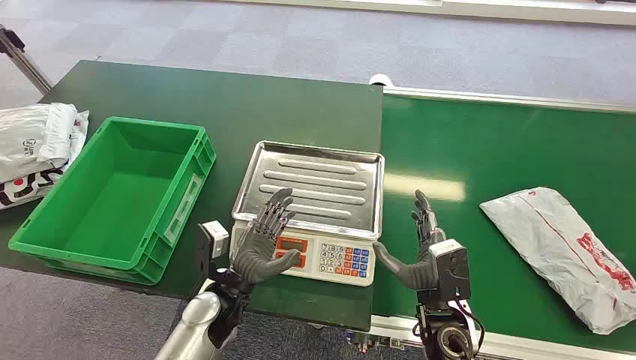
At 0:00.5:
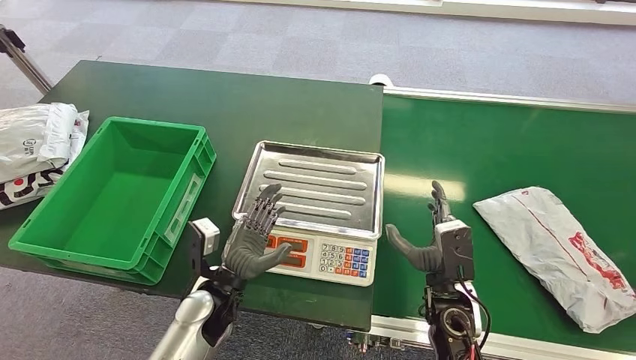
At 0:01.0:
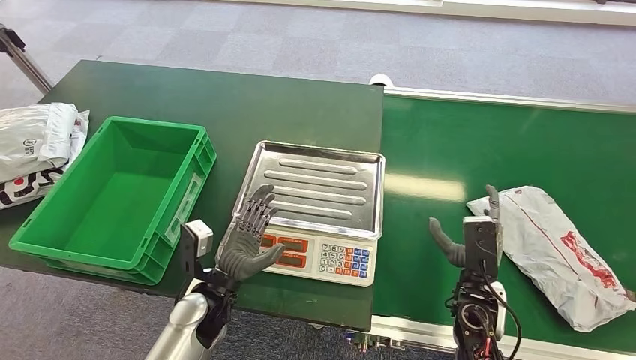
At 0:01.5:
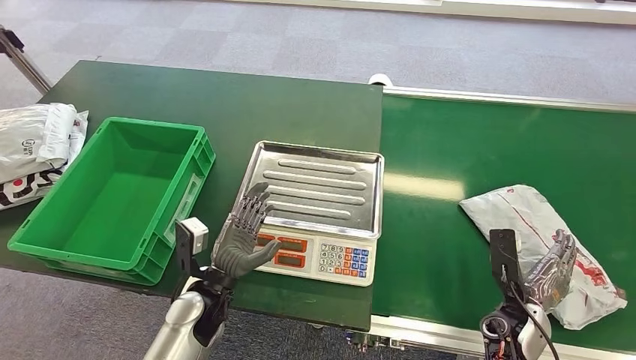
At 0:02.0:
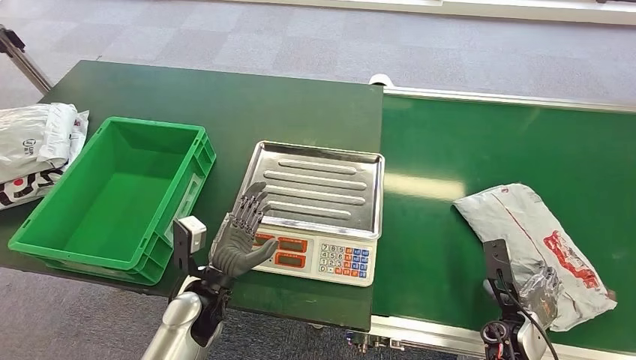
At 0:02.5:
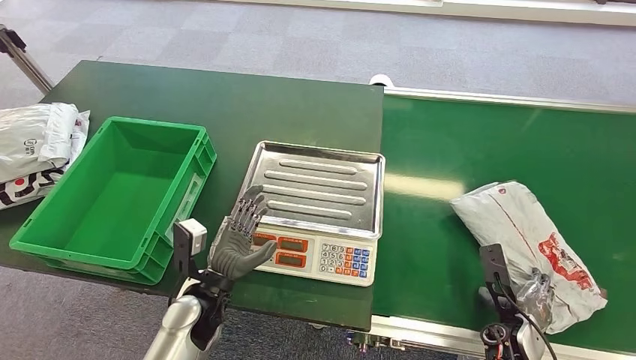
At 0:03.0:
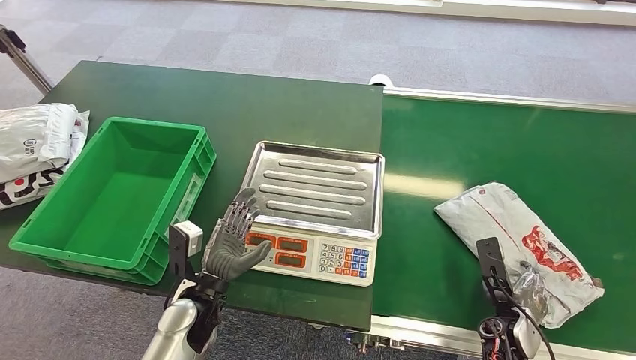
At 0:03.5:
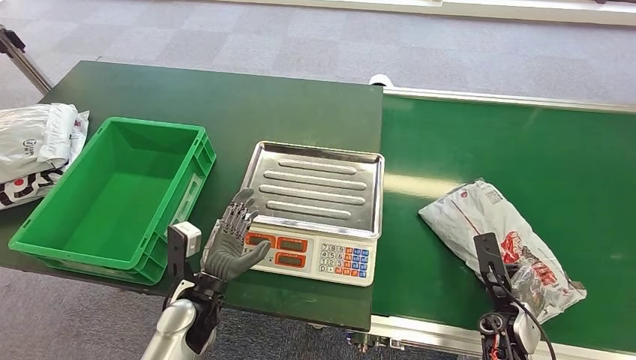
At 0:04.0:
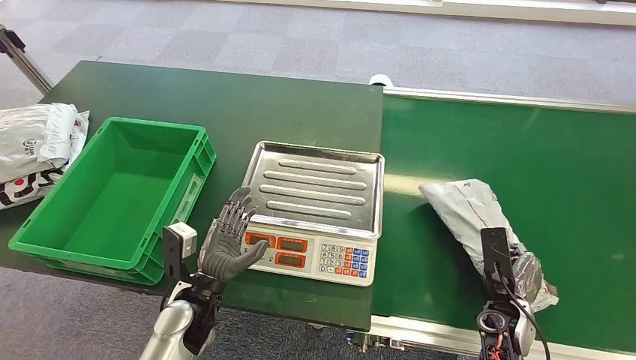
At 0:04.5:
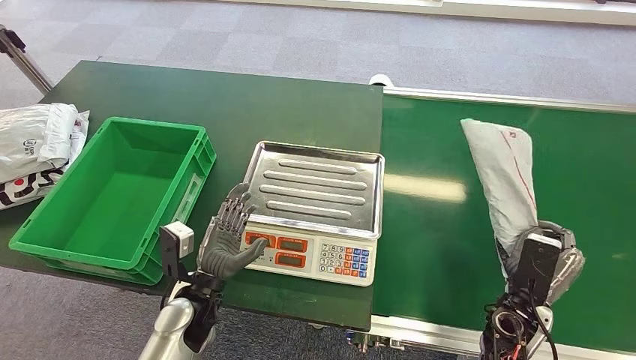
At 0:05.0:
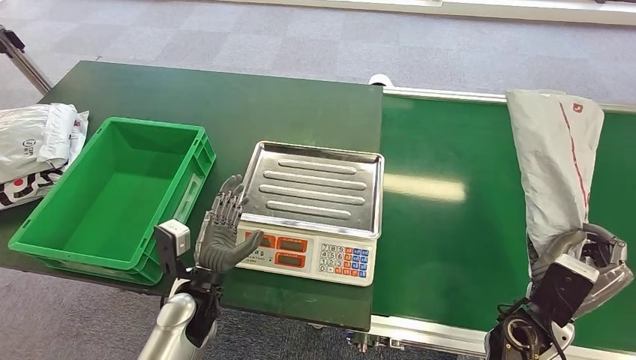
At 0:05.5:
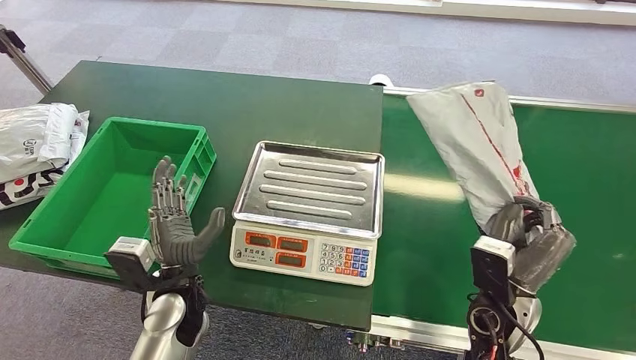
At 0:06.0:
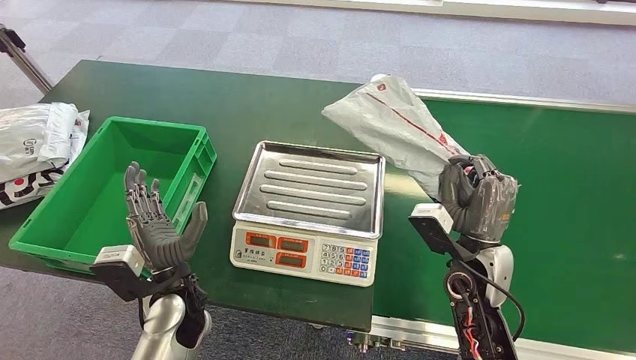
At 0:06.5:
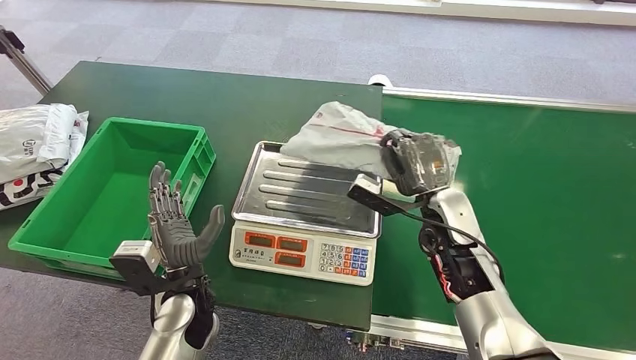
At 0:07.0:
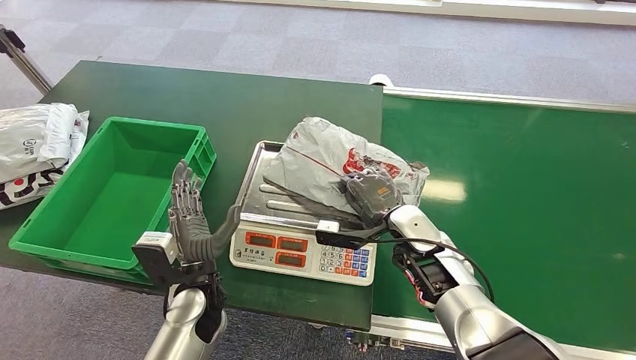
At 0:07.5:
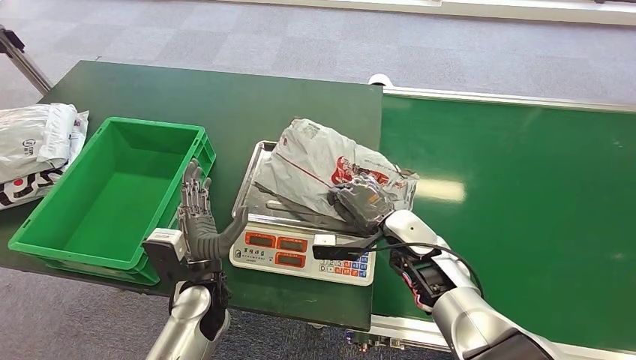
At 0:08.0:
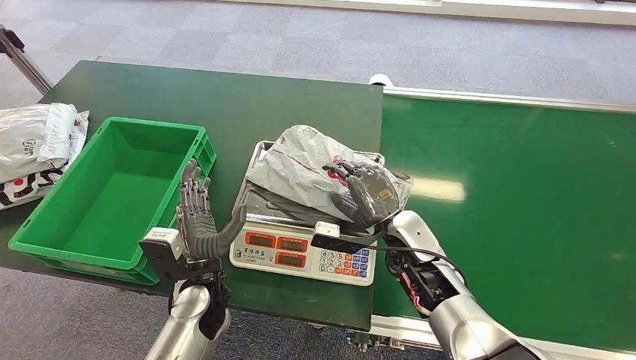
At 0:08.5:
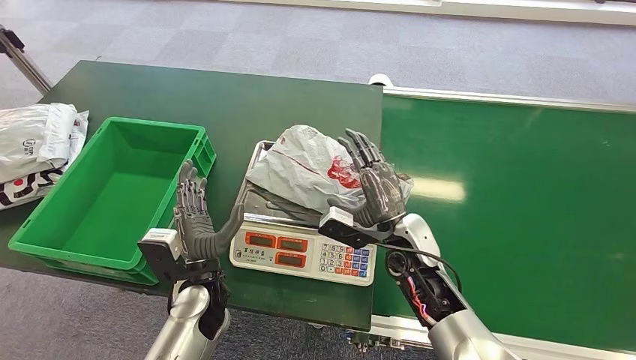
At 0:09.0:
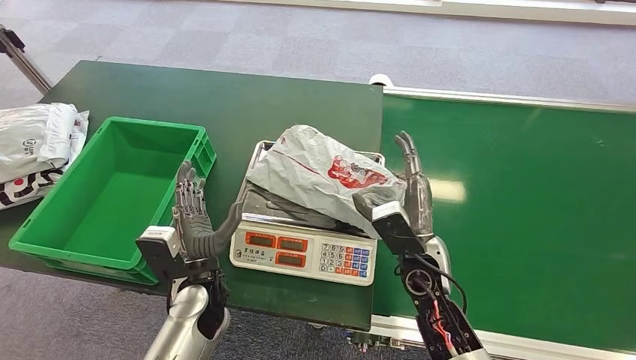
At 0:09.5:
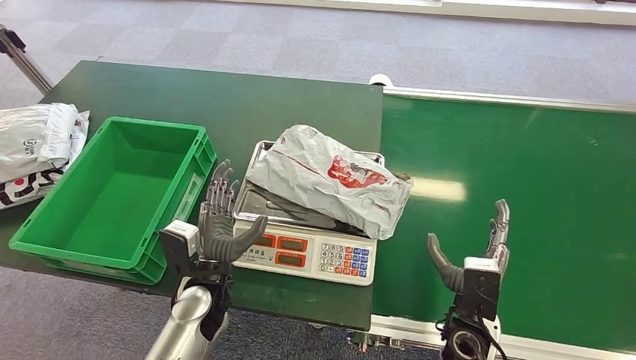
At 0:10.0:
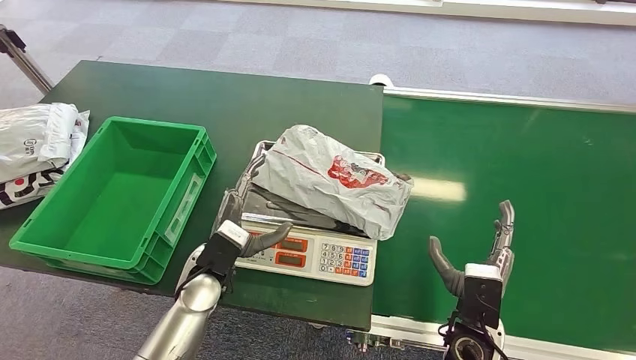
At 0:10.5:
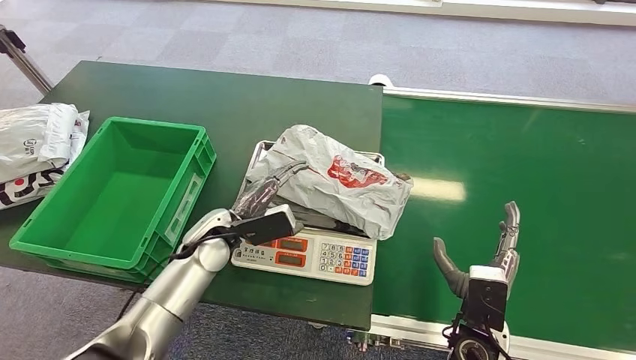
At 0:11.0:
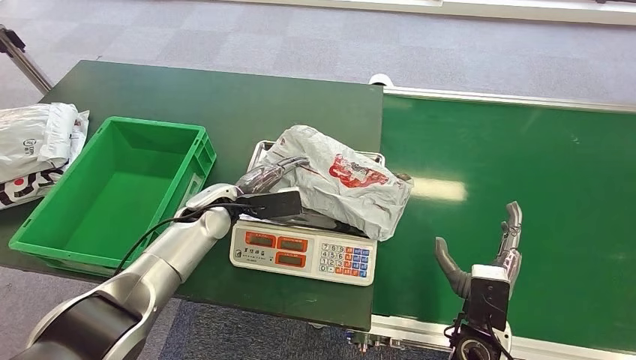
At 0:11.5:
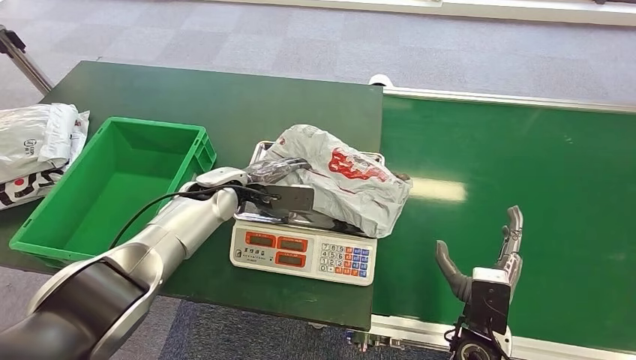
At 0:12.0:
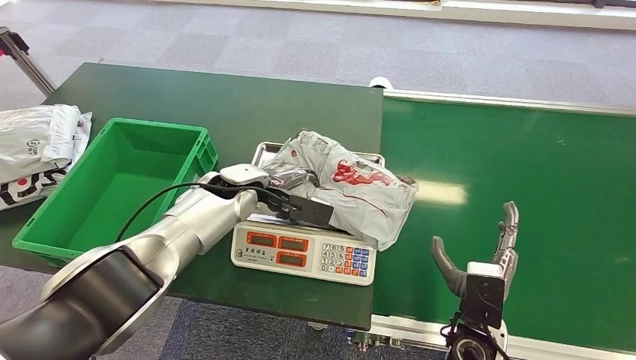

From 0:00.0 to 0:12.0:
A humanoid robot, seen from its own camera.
Step, from 0:00.0 to 0:04.5: Pick up the package from the conveyor belt.
Step, from 0:07.5 to 0:09.5: Place the package onto the inbound machine.
From 0:04.0 to 0:06.0: The right hand heads upward and to the left, covering some 15 cm.
From 0:08.0 to 0:10.0: The right hand moves backward and to the right, some 15 cm.

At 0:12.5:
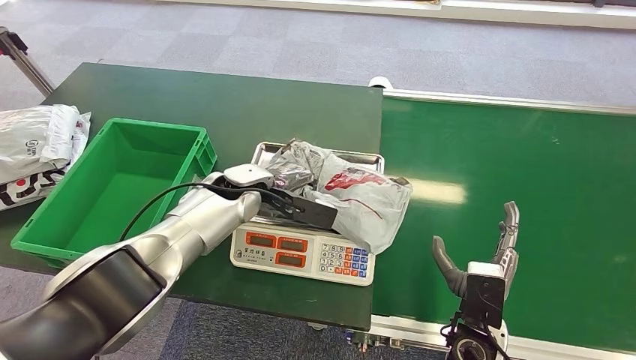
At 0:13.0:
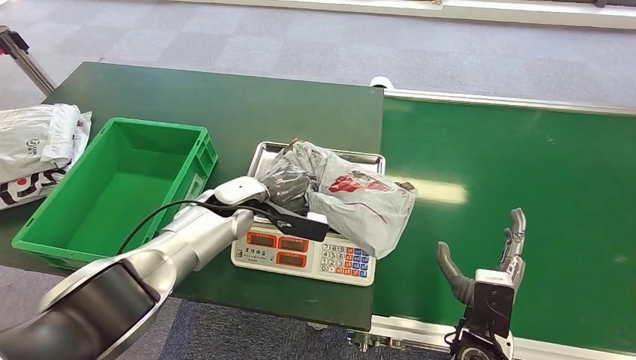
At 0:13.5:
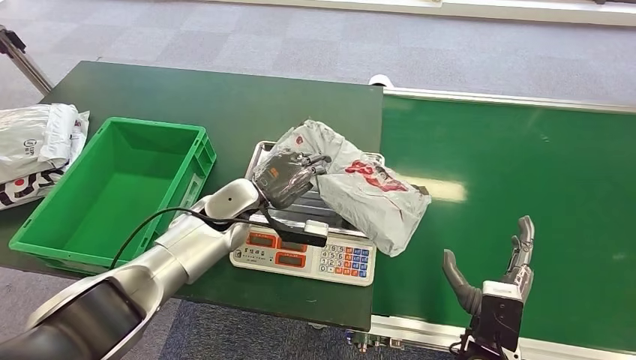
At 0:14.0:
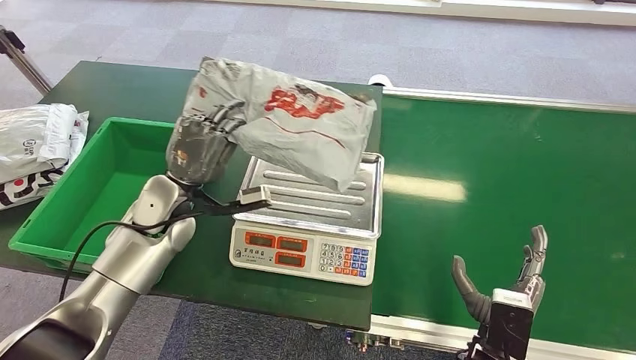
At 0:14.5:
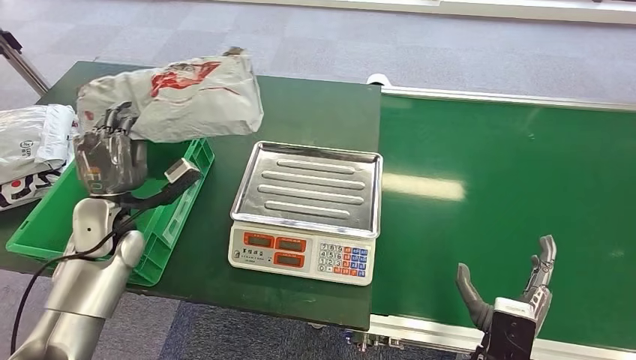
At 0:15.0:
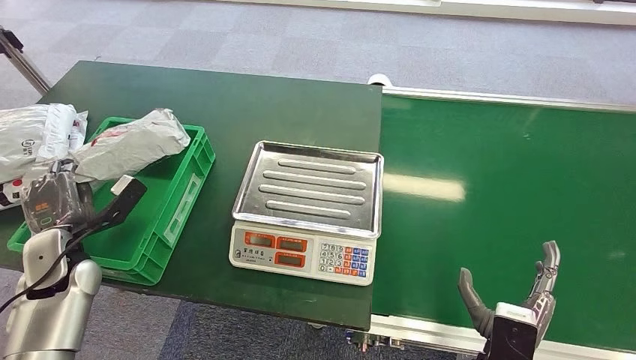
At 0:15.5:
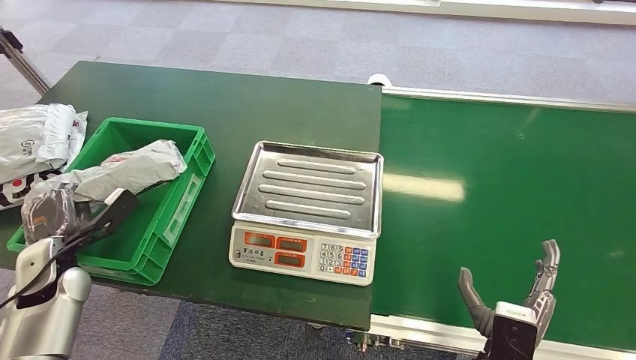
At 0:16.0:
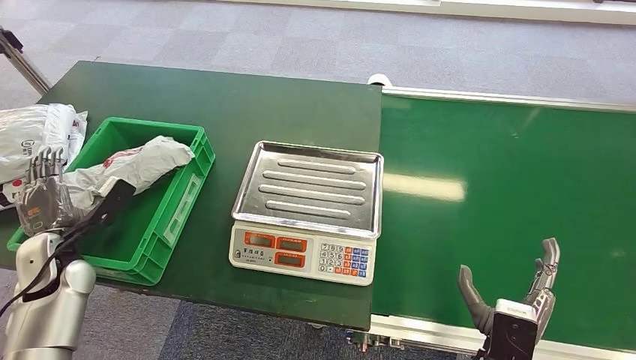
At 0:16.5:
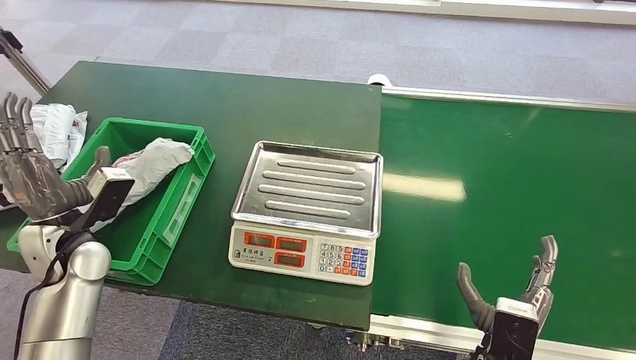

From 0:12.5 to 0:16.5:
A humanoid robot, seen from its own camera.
Step, from 0:14.5 to 0:16.5: Place the package into the parcel locker.
